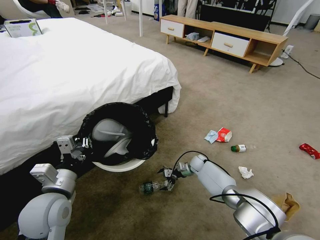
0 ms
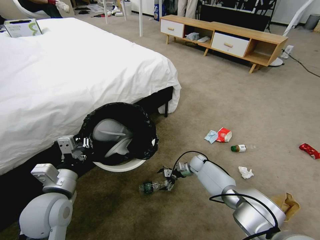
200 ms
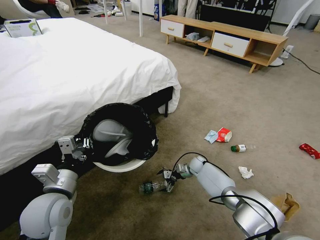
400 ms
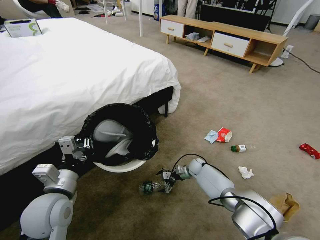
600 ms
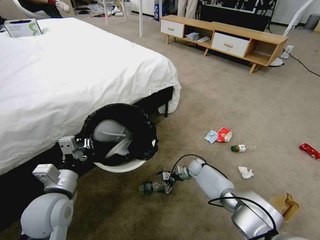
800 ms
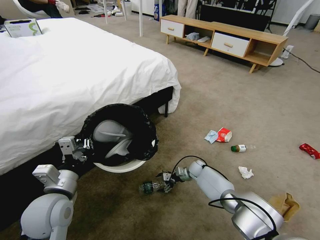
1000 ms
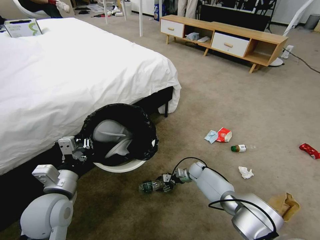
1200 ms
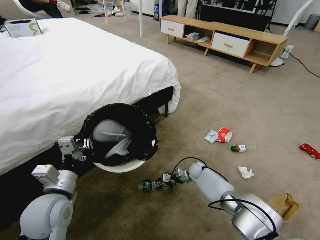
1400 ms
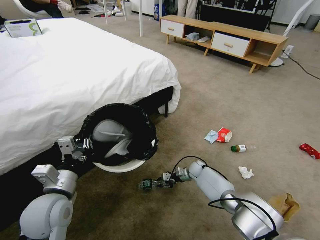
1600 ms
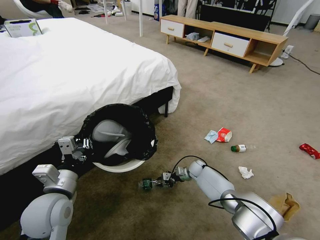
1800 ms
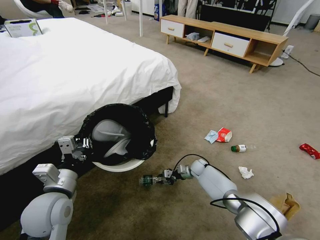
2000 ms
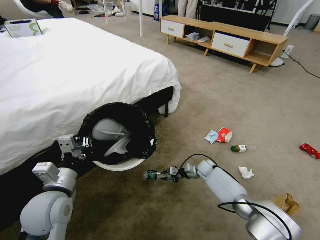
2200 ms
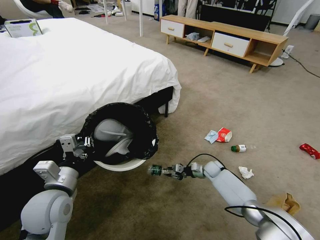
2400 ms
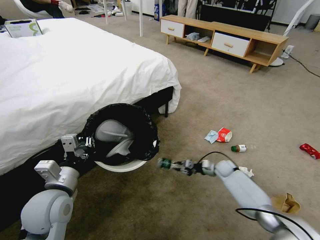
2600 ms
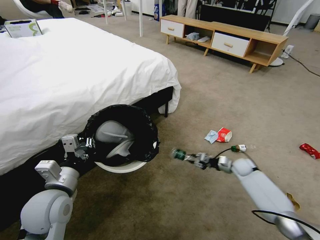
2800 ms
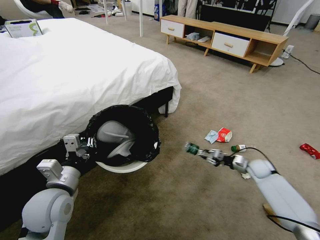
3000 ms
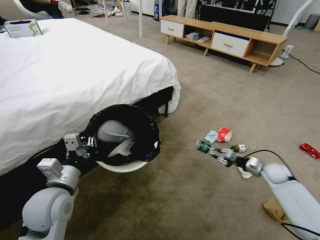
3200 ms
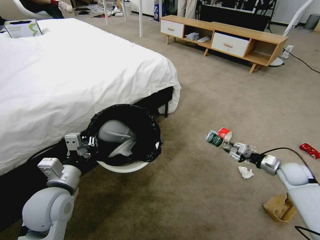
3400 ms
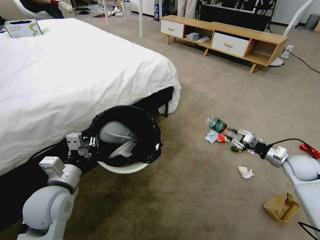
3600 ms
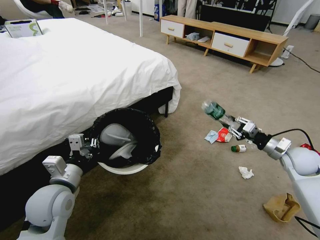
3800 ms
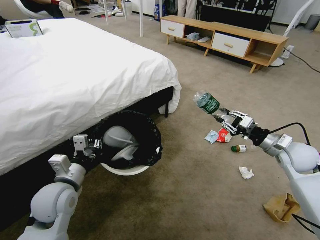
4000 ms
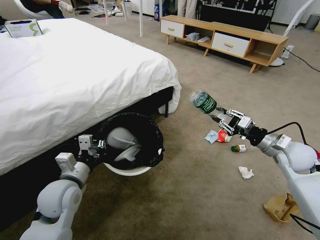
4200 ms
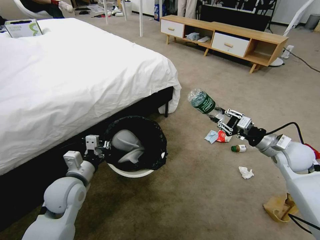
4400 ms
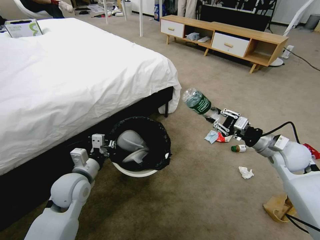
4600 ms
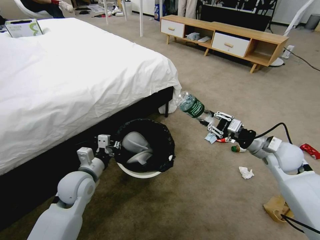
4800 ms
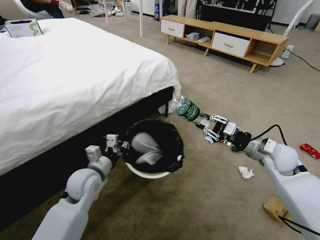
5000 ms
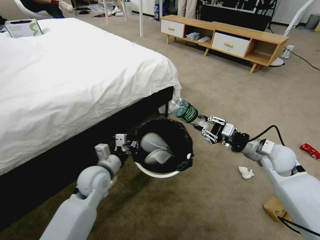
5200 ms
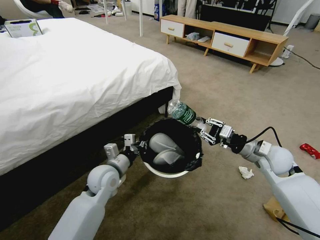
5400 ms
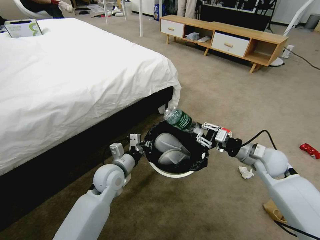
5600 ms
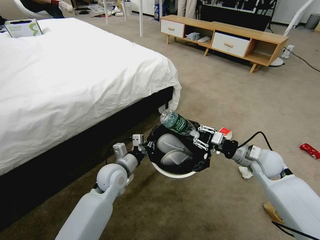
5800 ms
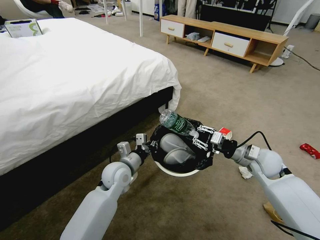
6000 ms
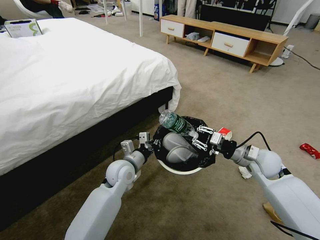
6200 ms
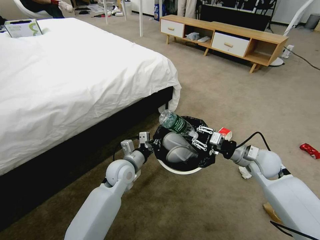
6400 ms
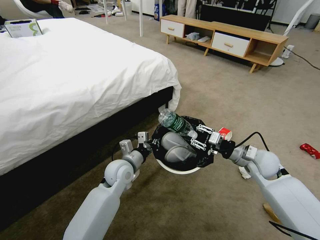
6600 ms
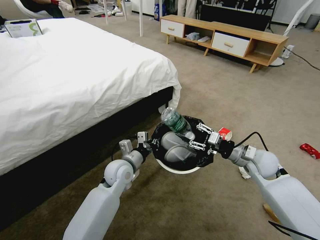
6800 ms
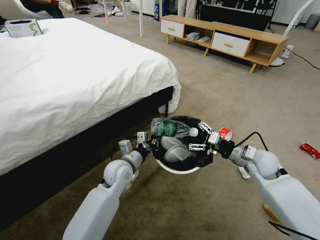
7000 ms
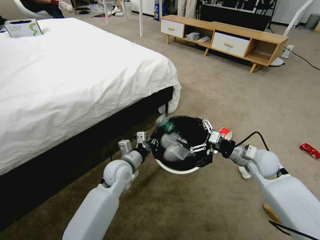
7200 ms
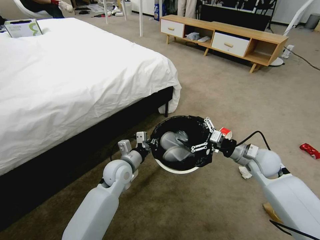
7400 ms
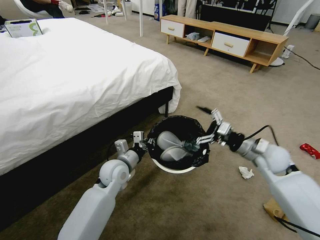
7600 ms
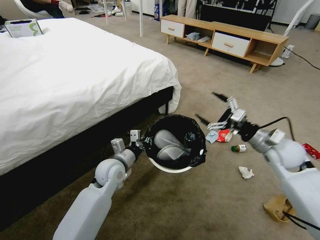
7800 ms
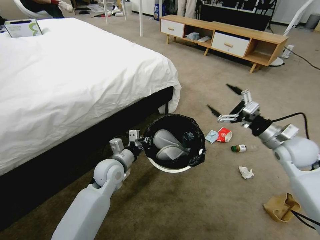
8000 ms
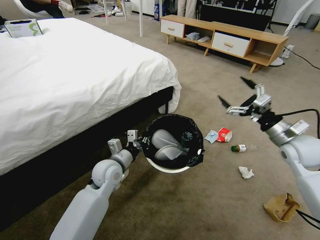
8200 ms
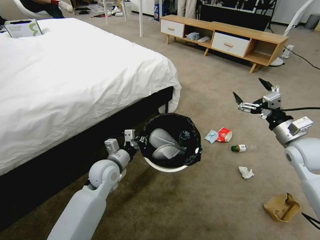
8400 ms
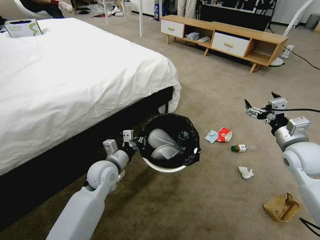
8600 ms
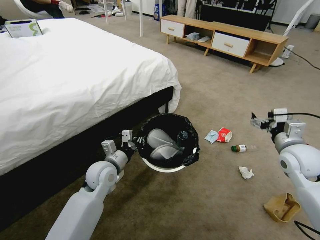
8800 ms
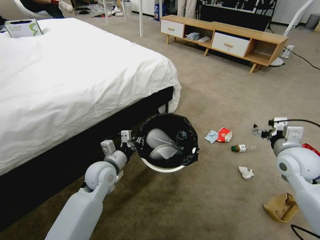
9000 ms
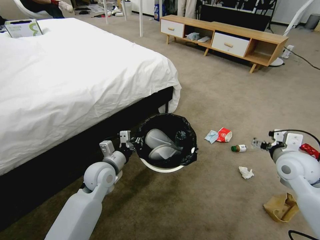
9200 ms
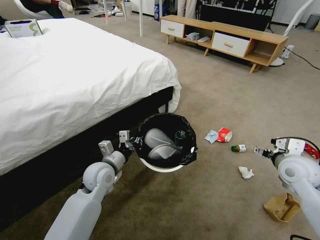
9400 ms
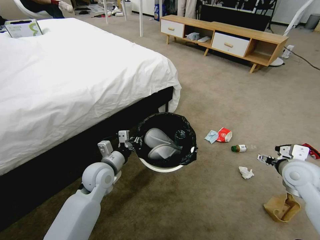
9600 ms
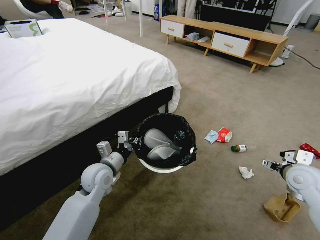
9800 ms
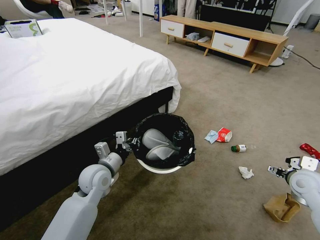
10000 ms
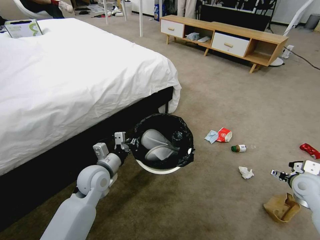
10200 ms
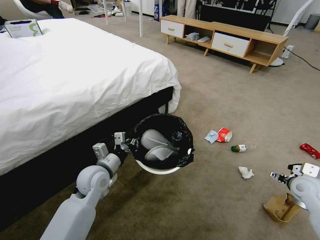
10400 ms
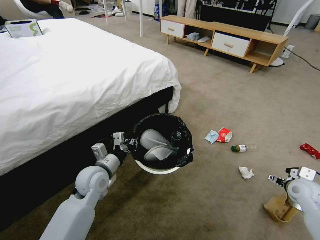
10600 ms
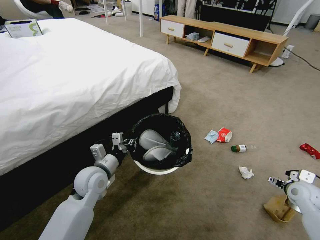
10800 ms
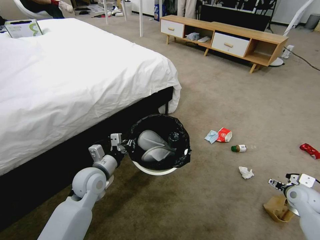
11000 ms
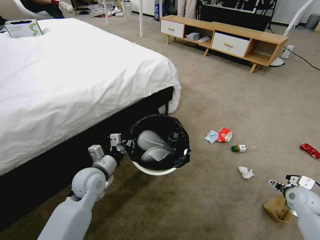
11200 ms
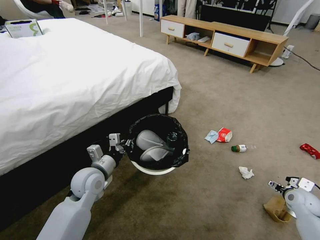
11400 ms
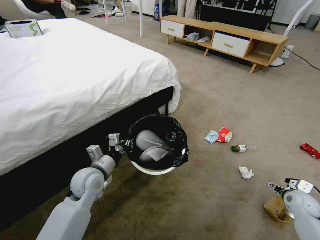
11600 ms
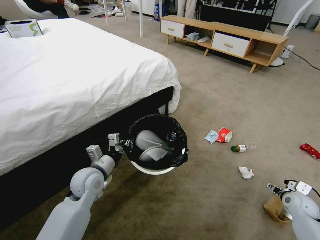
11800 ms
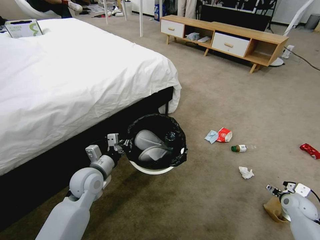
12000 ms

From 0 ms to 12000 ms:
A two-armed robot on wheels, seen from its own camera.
Task of the whole recording: Pick up the trash bin and place the garbage on the floor into it.
From 0 ms to 1600 ms: The right gripper closes.
From 1600 ms to 3000 ms: The right gripper shifts roughly 25 cm to the right and upward.
From 3000 ms to 4400 ms: The right gripper shifts approximately 20 cm upward, while the left gripper shifts by roughly 5 cm.
From 4400 ms to 6000 ms: The left gripper is displaced to the right and forward by about 15 cm. Meanwhile the right gripper goes approximately 5 cm to the left.
From 6000 ms to 7600 ms: The right gripper opens.
From 7600 ms to 9000 ms: The right gripper ends up roughly 5 cm from where it was.
From 9000 ms to 10400 ms: The right gripper heads downward and to the right, covering roughly 15 cm.
From 10400 ms to 12000 ms: The right gripper travels downward by approximately 15 cm.

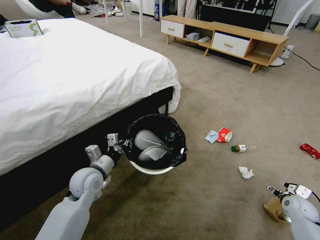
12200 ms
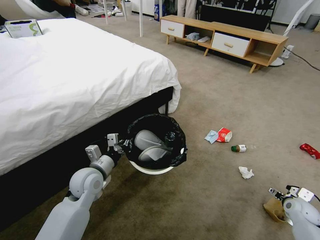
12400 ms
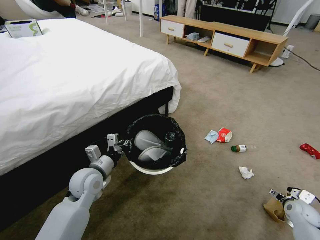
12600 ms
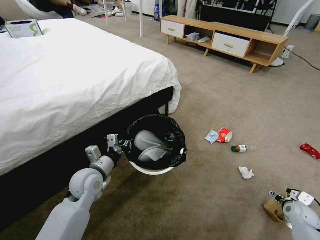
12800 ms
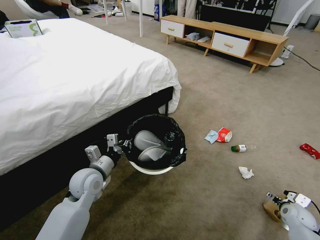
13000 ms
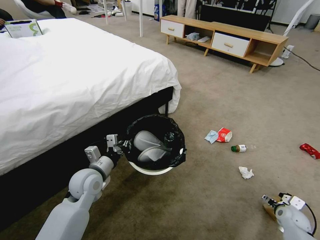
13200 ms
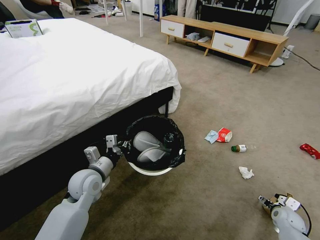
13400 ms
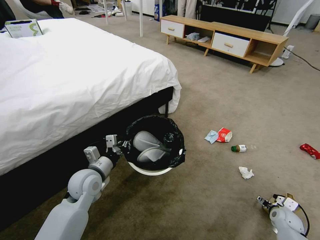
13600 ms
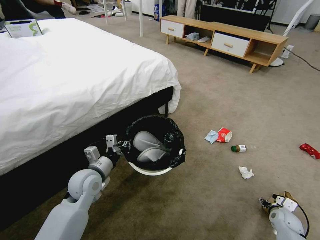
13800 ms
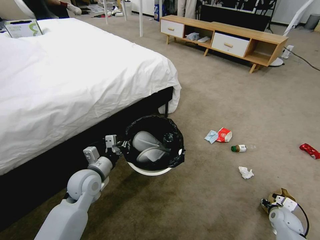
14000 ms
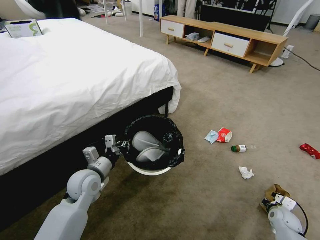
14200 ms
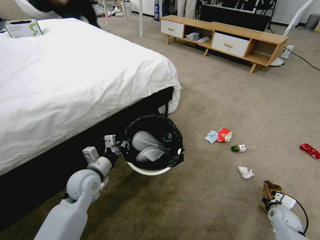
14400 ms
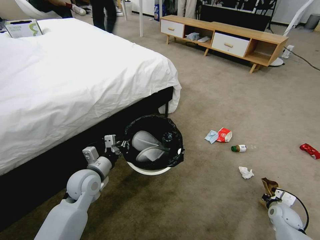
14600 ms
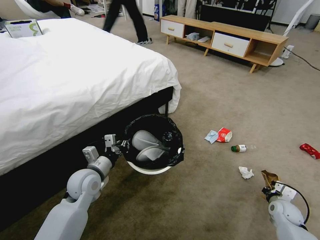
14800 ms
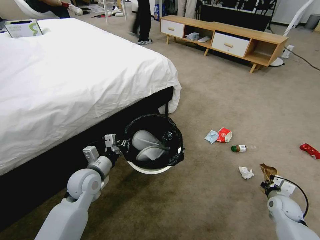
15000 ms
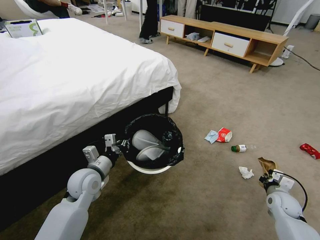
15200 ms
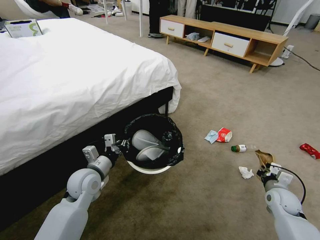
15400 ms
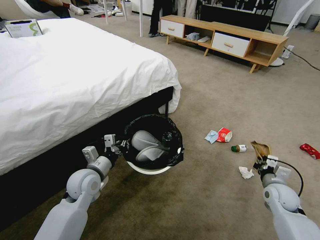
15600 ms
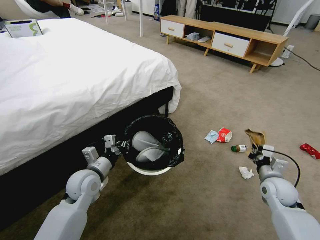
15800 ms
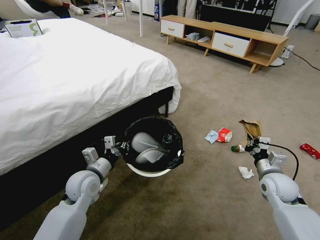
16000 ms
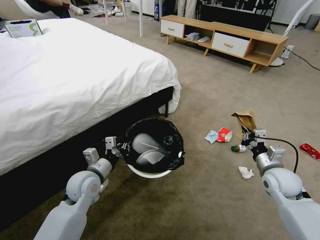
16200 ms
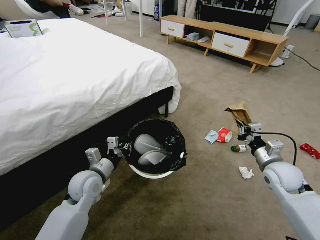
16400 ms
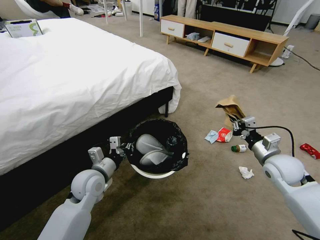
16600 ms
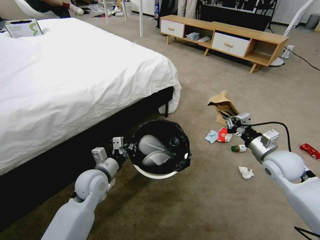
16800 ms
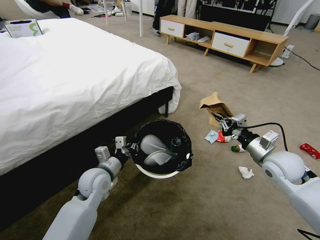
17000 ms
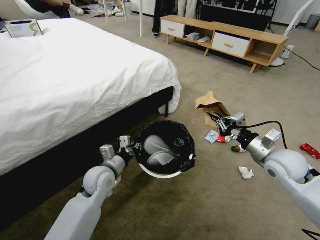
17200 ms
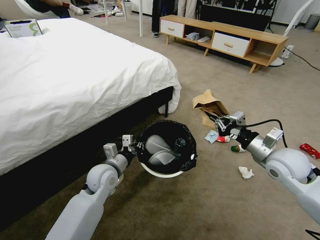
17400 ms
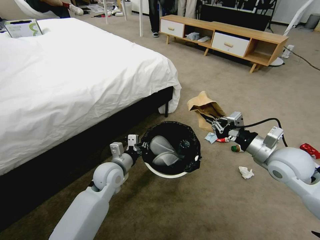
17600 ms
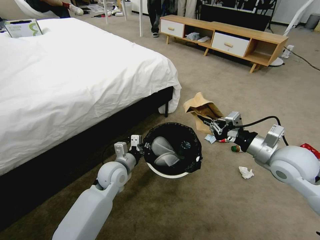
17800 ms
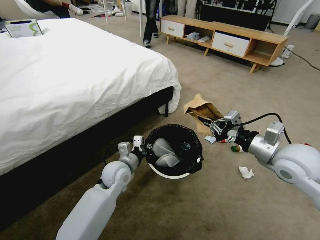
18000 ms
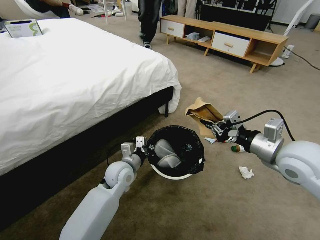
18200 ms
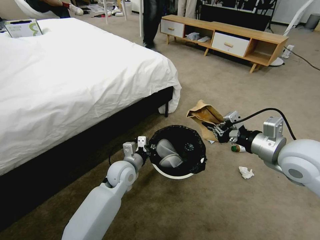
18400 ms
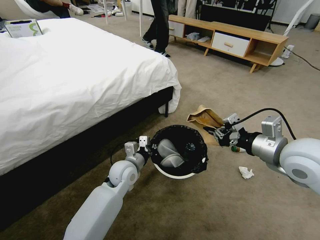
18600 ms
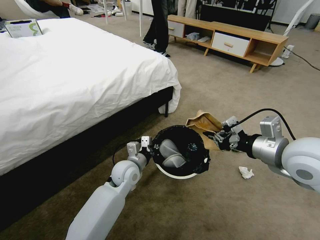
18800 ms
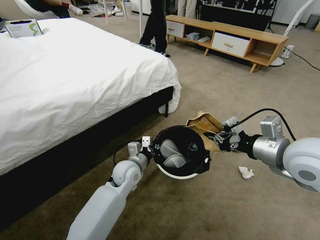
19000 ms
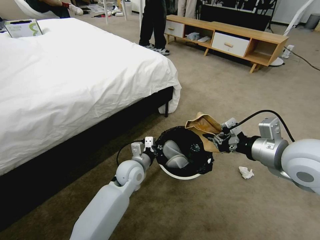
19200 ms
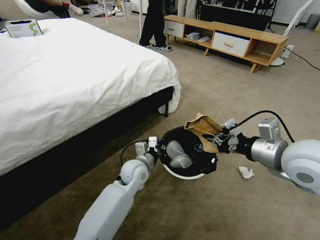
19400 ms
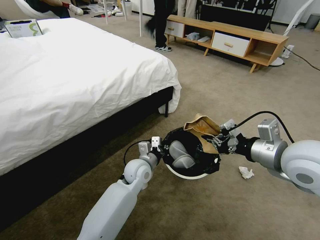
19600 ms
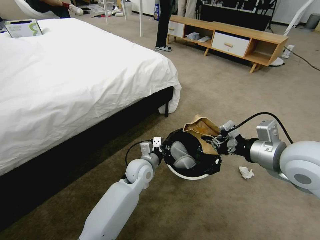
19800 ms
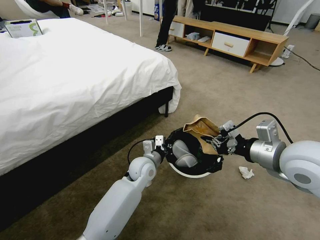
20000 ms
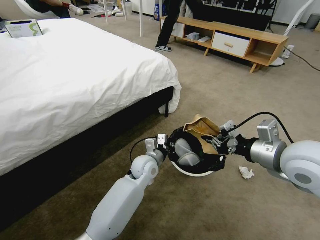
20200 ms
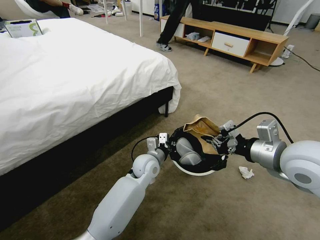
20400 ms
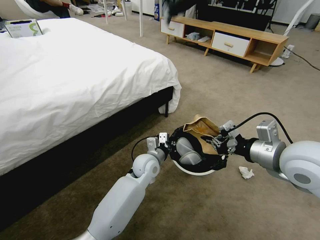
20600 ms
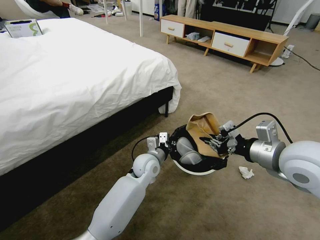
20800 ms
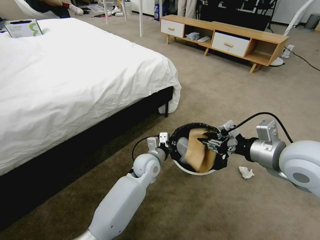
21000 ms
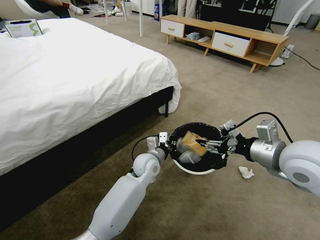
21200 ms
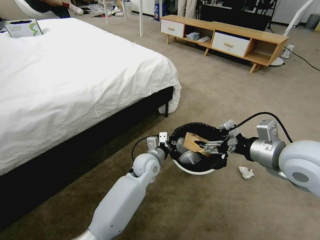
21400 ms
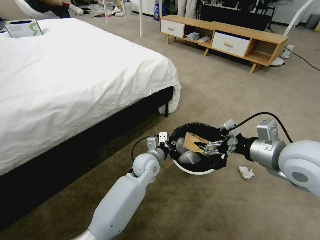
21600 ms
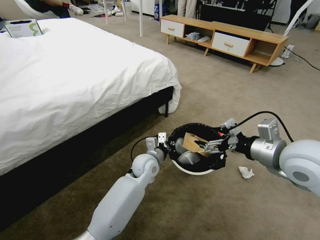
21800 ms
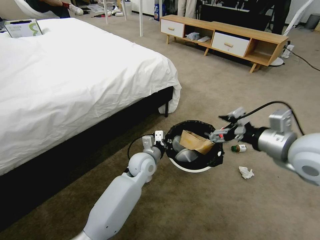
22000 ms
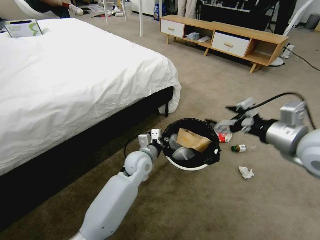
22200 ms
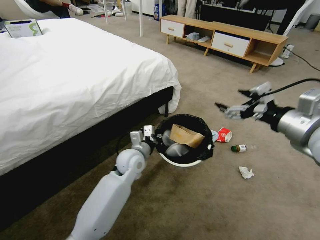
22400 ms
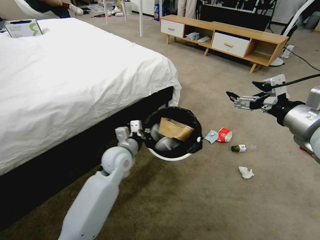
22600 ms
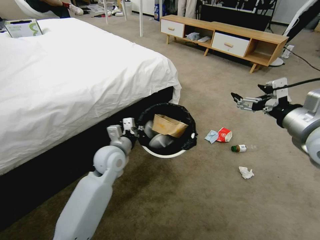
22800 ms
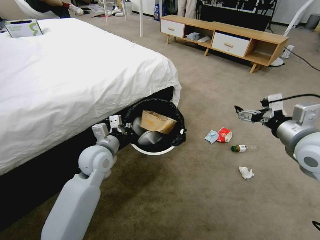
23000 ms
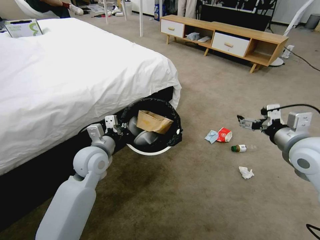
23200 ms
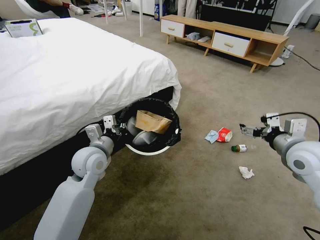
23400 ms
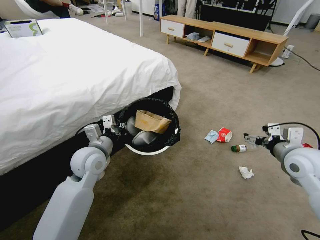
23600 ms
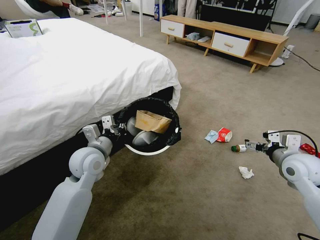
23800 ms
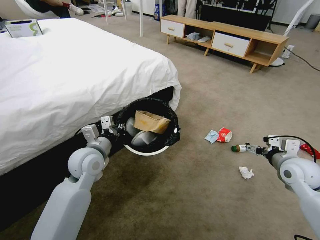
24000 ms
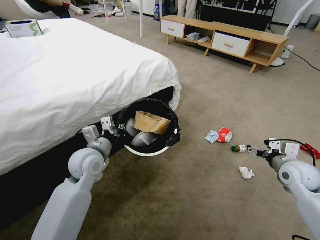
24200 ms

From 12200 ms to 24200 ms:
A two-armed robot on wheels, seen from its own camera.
Task of the whole recording: Pick up the trash bin and place the garbage on the floor into it.
From 12200 ms to 13800 ms: The right gripper travels downward by roughly 5 cm.
From 13800 ms to 15200 ms: The right gripper heads upward, covering some 10 cm, and closes its fingers.
From 15200 ms to 16600 ms: The right gripper shifts roughly 20 cm upward and to the left.
From 16600 ms to 18200 ms: The left gripper is displaced to the right by some 10 cm. Meanwhile the right gripper is displaced upward, to the left and backward by about 15 cm.
From 18200 ms to 19800 ms: The left gripper moves to the right, approximately 5 cm.
From 19800 ms to 21200 ms: The right gripper opens.
From 21200 ms to 22600 ms: The right gripper shifts some 5 cm upward, and opens, while the left gripper shifts some 10 cm to the left and upward.
From 22600 ms to 24200 ms: The right gripper goes about 25 cm downward and to the right, while the left gripper shifts about 10 cm to the left.
